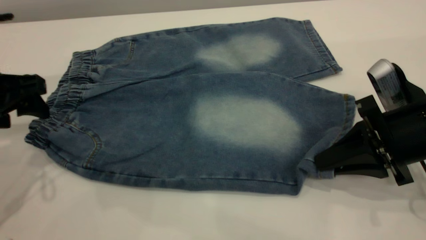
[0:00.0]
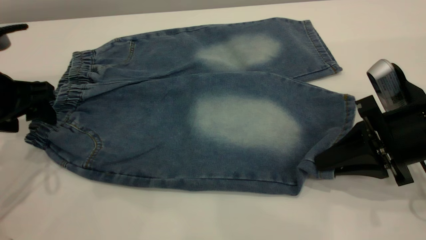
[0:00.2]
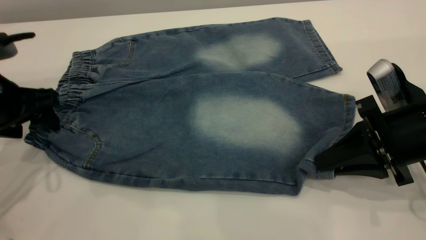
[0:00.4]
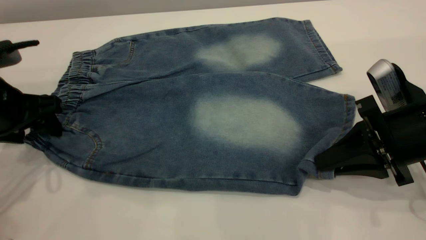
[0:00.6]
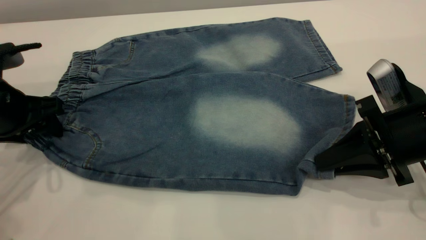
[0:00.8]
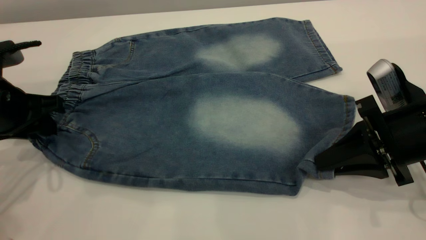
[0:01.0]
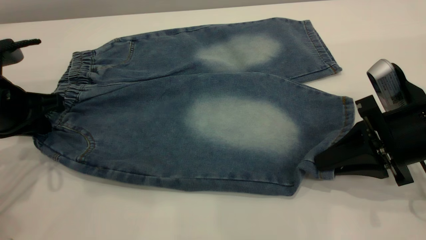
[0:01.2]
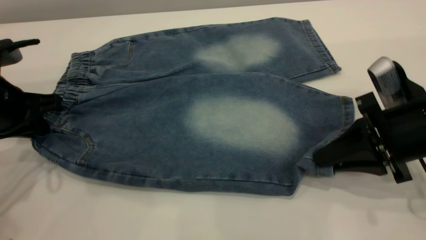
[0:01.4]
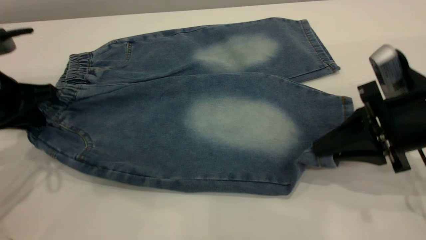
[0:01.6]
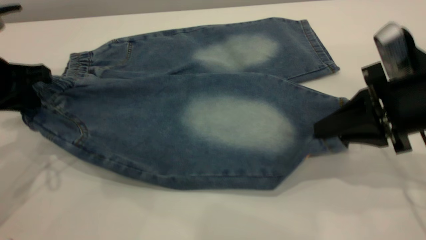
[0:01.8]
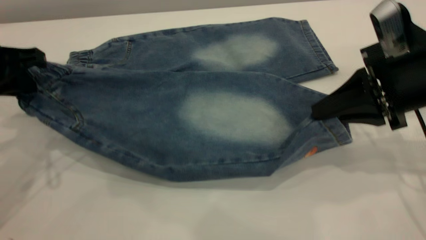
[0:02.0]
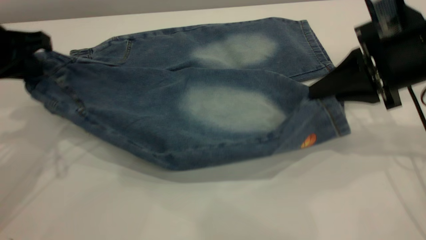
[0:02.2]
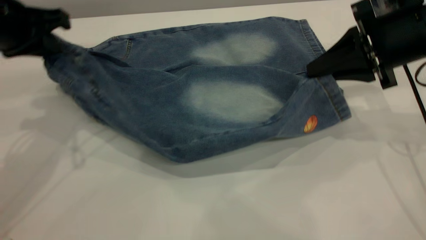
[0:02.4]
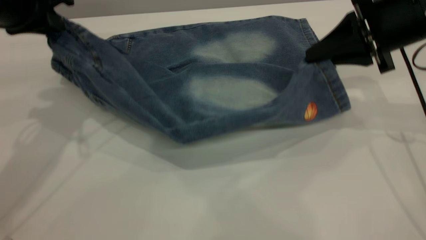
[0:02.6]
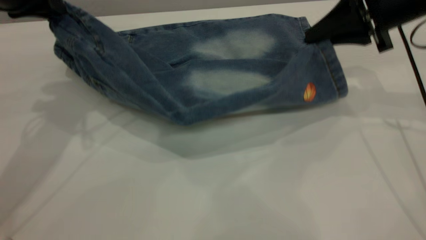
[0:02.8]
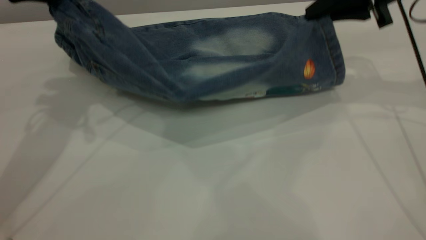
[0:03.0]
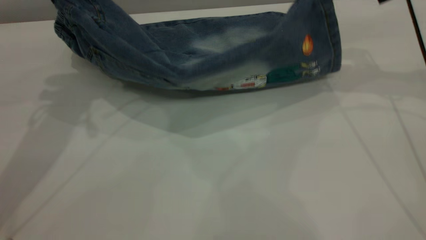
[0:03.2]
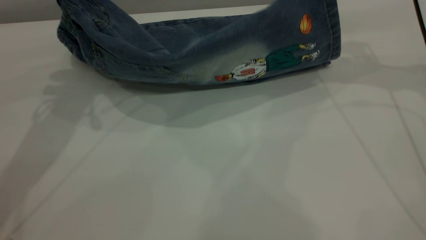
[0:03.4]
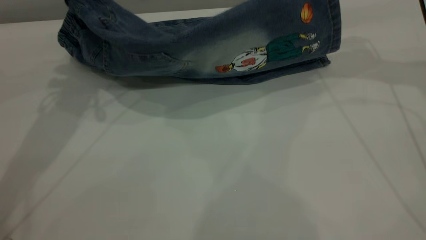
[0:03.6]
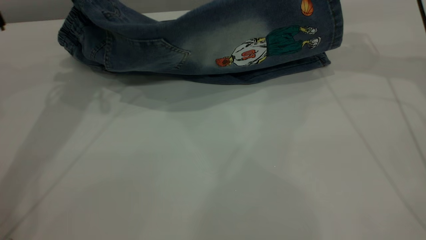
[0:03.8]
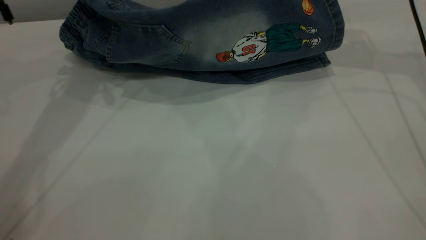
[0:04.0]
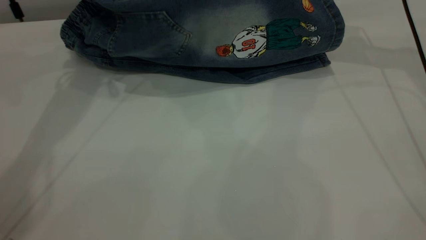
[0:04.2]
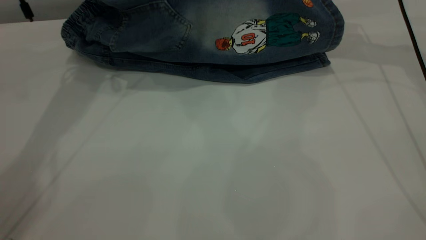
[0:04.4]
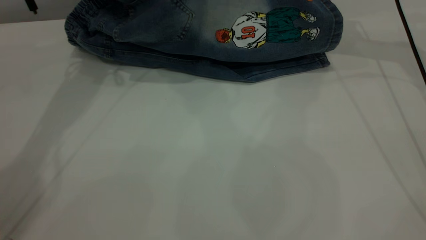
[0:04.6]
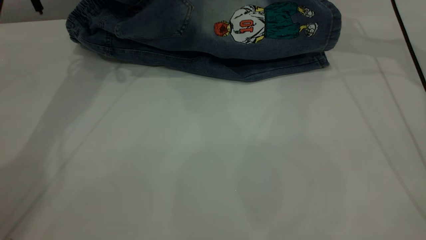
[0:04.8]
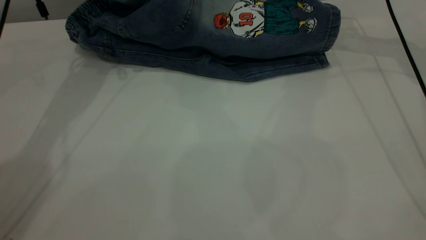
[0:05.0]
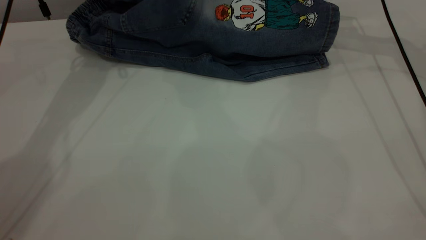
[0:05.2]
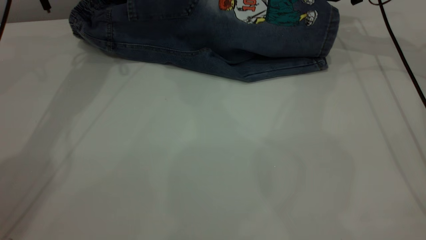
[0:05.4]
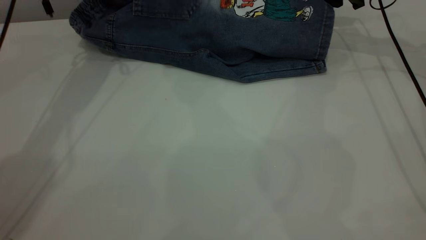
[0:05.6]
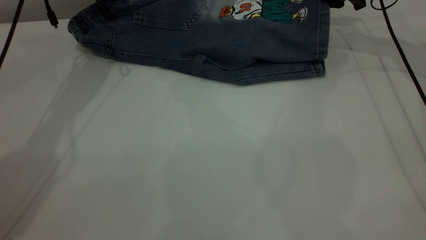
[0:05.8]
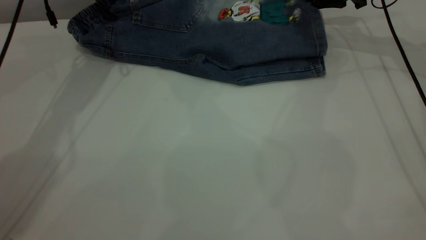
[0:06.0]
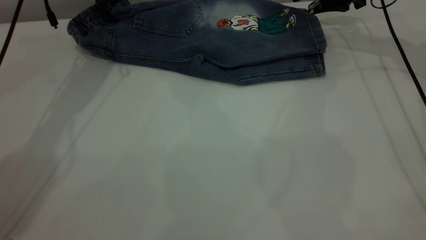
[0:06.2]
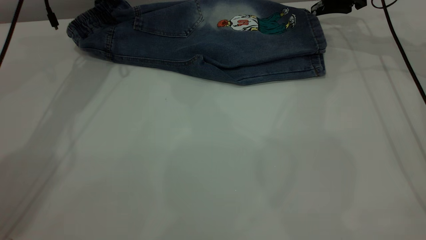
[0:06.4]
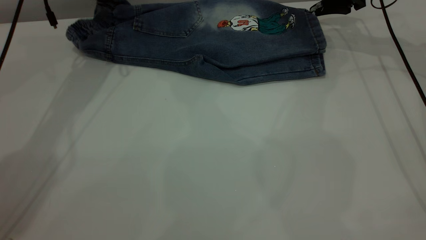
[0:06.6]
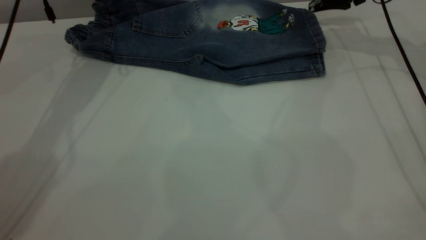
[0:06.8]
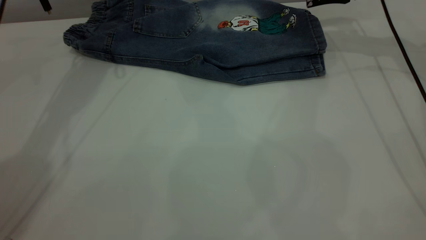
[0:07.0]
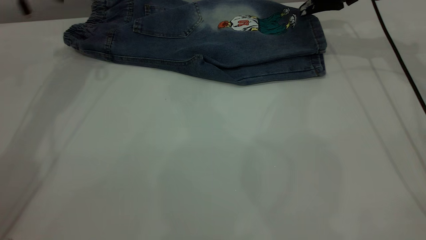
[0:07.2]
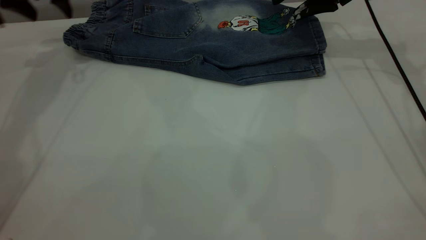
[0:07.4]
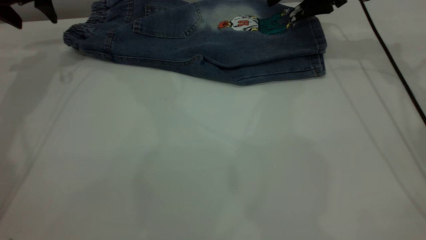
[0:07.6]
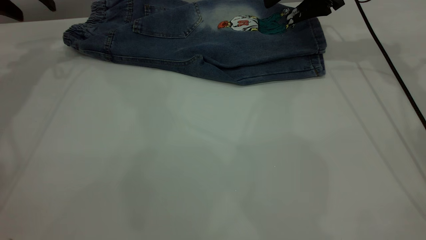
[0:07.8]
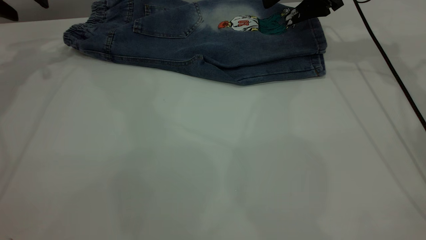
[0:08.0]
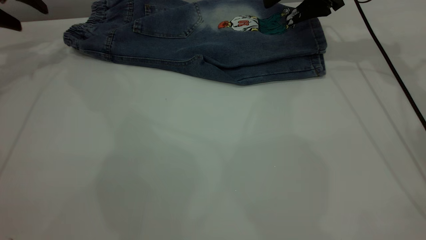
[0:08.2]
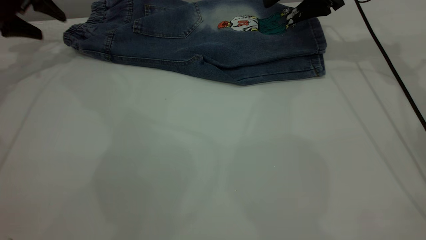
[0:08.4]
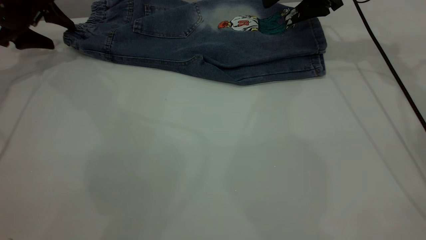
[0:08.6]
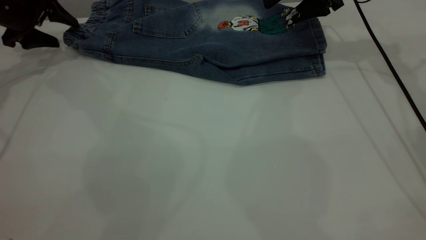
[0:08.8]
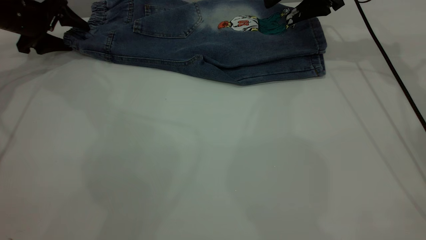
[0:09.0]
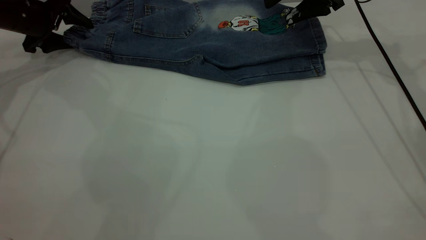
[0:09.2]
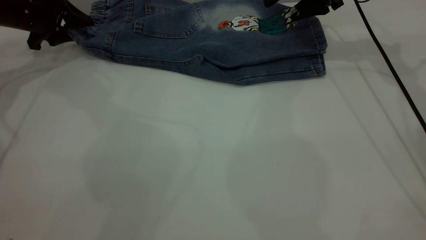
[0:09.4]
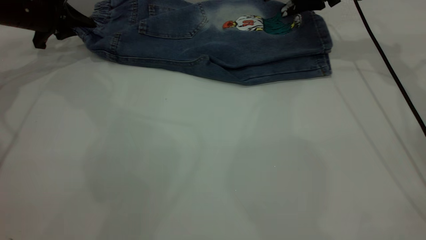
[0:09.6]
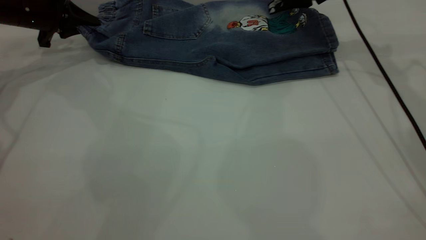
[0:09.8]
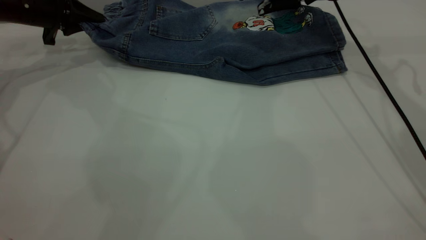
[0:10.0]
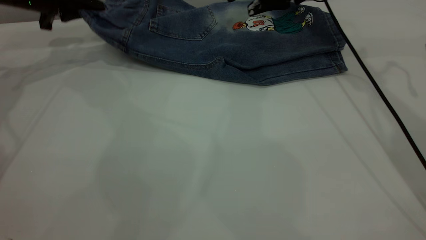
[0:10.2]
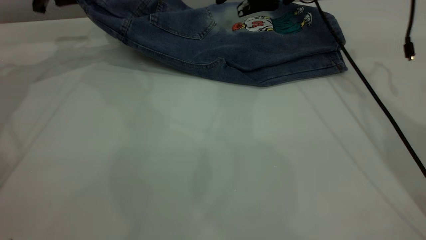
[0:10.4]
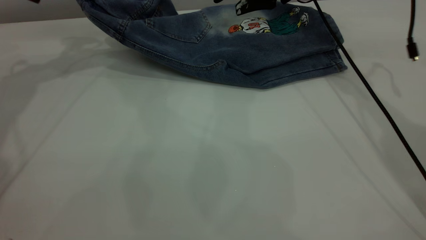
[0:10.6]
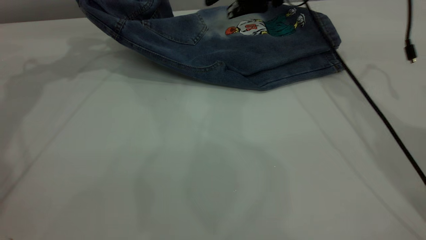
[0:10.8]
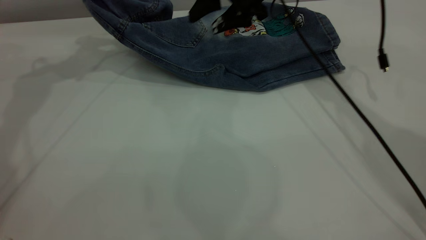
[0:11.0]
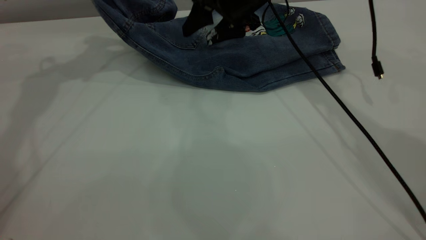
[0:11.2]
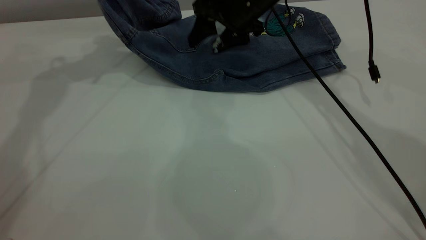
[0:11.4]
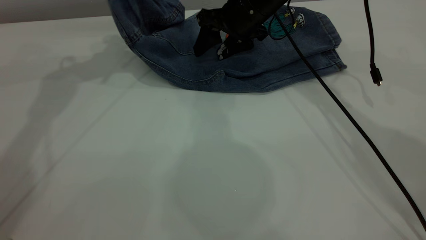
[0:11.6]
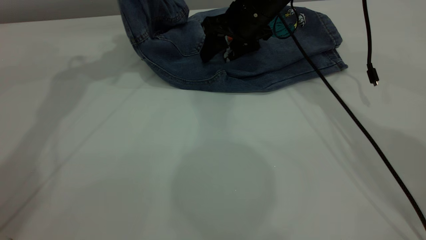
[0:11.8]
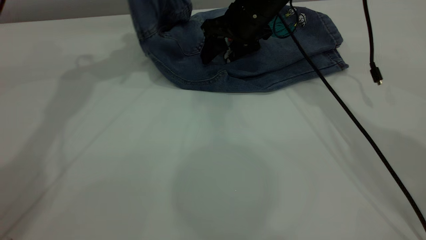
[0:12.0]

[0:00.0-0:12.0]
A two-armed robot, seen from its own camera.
Step, 0:00.0 to 0:07.4: Fold the bottom of the pants upward.
0:00.0 to 0:01.6: The left gripper closes up.
0:01.6 to 0:03.0: The left gripper is displaced upward and forward by roughly 15 cm. The right gripper goes roughly 20 cm forward and upward.
0:03.0 to 0:04.4: The two grippers go some 10 cm forward.
0:04.4 to 0:06.0: The left gripper moves approximately 5 cm. The right gripper goes about 5 cm downward, and opens its fingers.
0:06.0 to 0:07.6: The left gripper heads to the left, covering about 10 cm, and opens its fingers, while the right gripper ends up some 5 cm from where it was, and opens up.
0:07.6 to 0:09.0: The left gripper shifts approximately 10 cm downward.
0:09.0 to 0:10.4: The right gripper travels to the left by some 10 cm. Meanwhile the left gripper shifts roughly 10 cm upward and to the right, and closes up.
0:10.4 to 0:12.0: The right gripper moves downward and to the left, about 10 cm. Meanwhile the left gripper shifts approximately 15 cm to the right and upward.

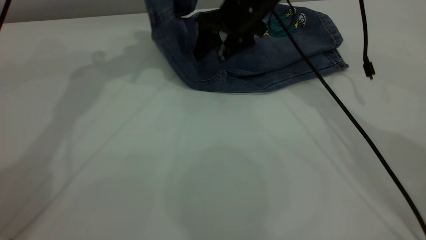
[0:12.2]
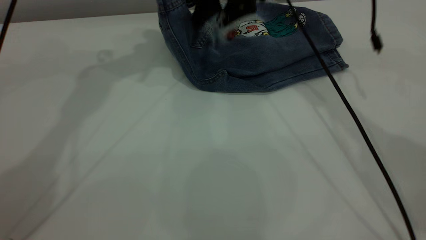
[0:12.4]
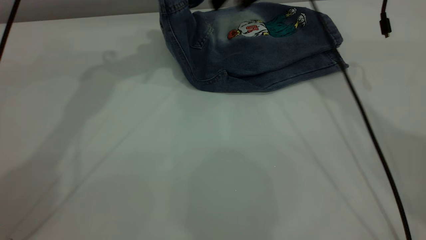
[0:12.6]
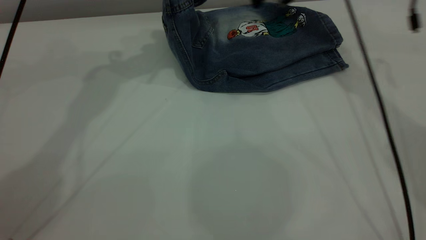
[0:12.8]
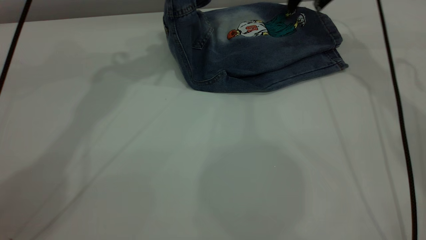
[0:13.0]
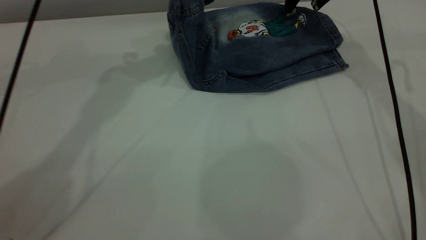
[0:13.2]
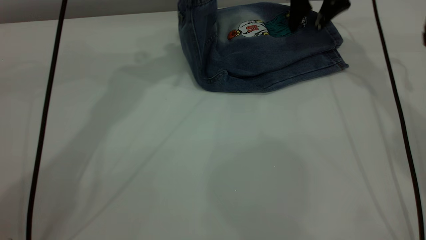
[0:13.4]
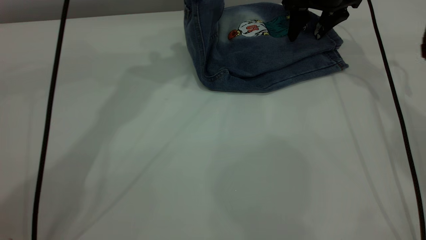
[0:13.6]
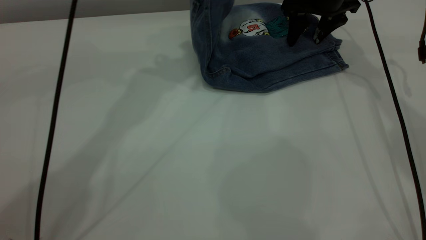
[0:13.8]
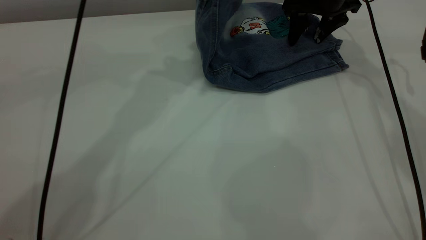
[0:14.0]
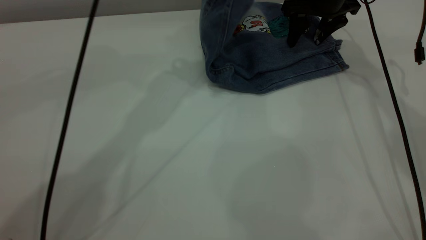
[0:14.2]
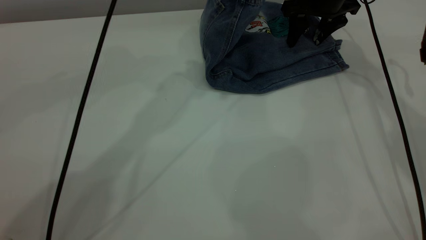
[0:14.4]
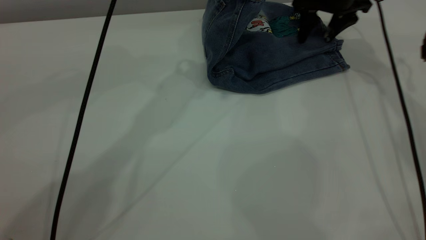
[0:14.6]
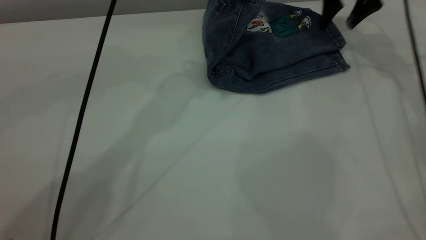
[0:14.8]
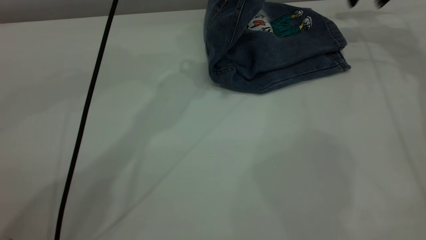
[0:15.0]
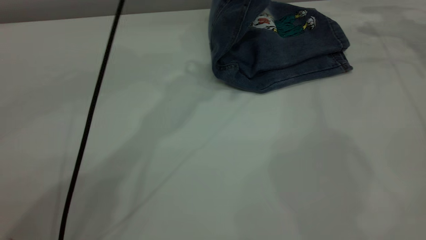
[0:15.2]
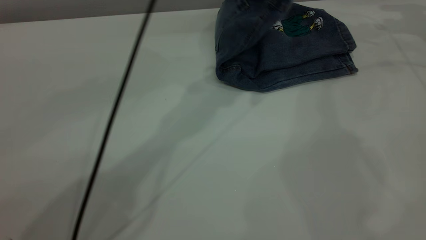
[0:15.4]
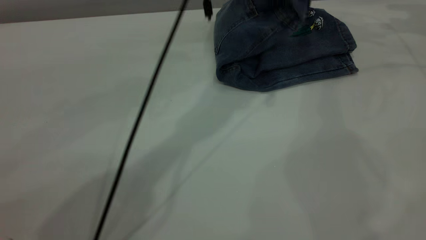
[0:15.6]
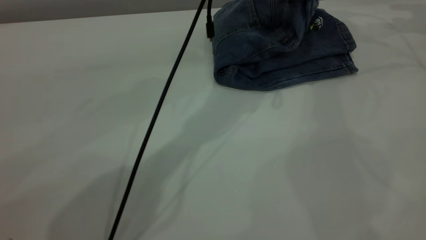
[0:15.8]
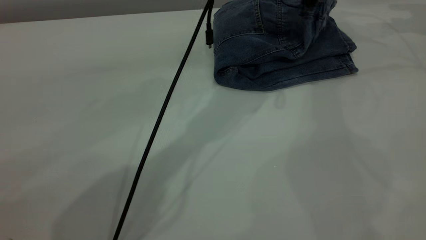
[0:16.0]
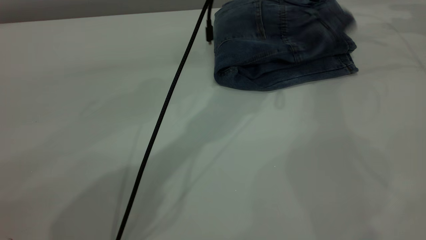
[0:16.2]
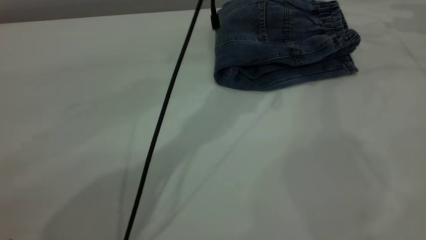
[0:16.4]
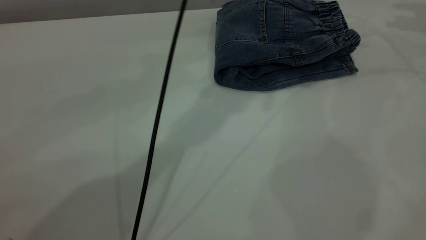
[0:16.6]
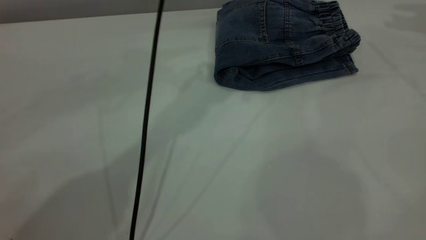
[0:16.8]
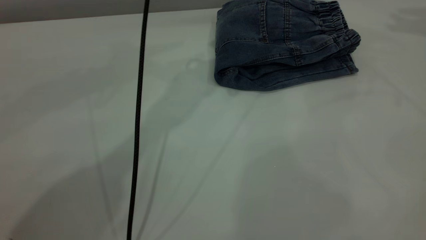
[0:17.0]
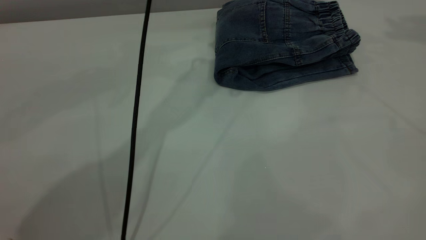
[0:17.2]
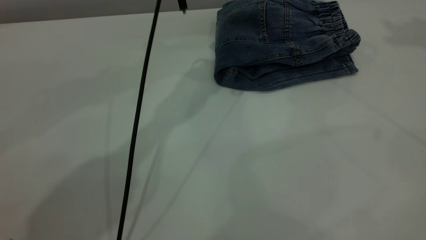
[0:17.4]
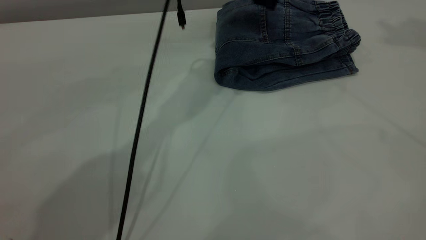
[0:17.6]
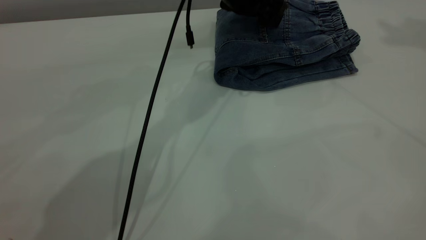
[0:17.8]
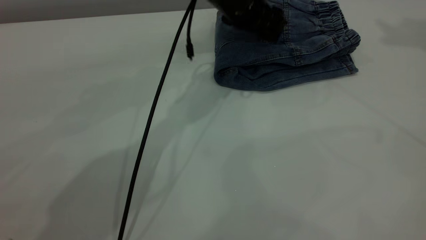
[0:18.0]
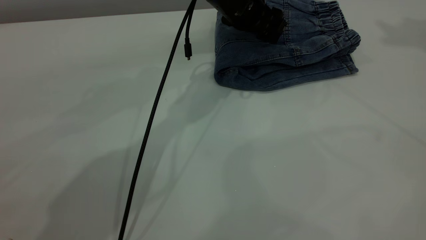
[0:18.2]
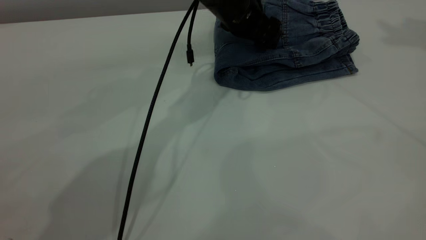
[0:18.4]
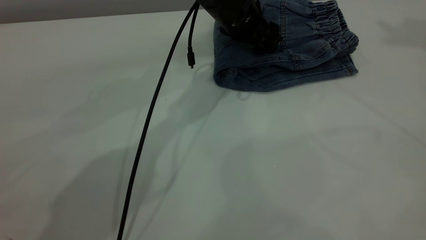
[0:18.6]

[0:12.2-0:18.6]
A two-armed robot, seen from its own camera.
Step, 0:12.2 to 0:17.2: Fold the pants from left to right.
0:12.2 to 0:13.8: Both grippers move to the right, roughly 10 cm.
0:13.8 to 0:15.4: The left gripper is displaced to the right and downward by about 10 cm. Meanwhile the right gripper shifts roughly 20 cm to the right and upward.
0:15.4 to 0:17.0: The left gripper goes downward and returns, about 10 cm each way, and opens up. The right gripper goes roughly 20 cm upward.
0:17.0 to 0:18.6: The left gripper is displaced downward by roughly 15 cm, while the right gripper is displaced upward by some 10 cm.
